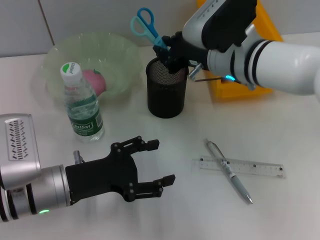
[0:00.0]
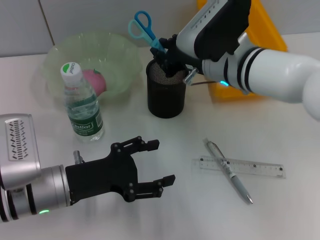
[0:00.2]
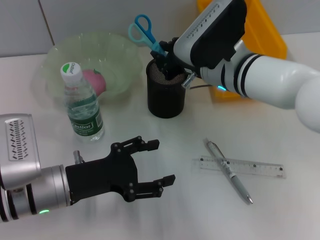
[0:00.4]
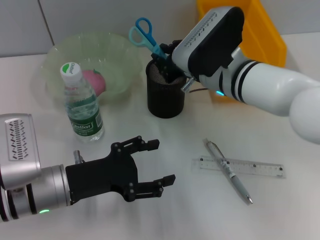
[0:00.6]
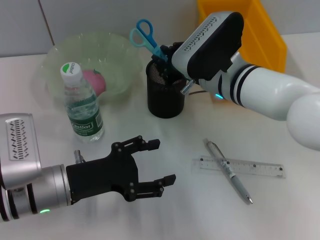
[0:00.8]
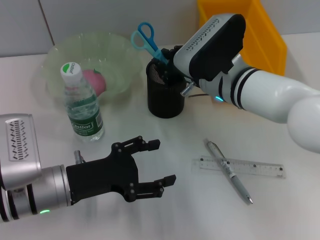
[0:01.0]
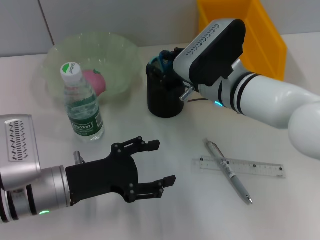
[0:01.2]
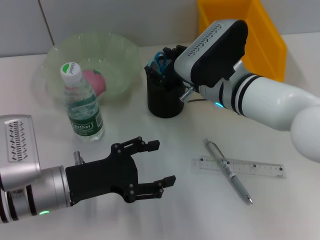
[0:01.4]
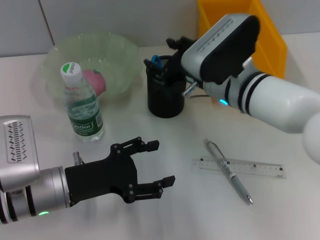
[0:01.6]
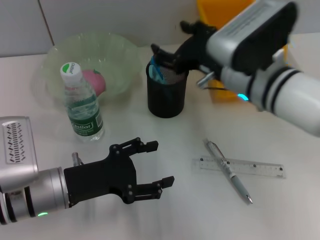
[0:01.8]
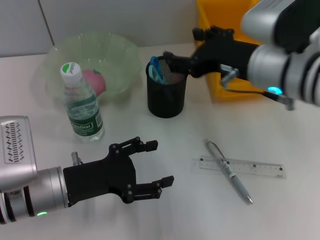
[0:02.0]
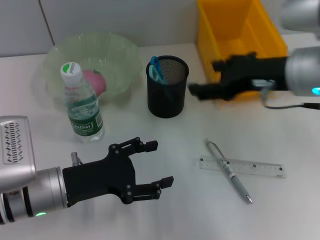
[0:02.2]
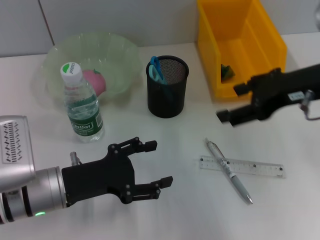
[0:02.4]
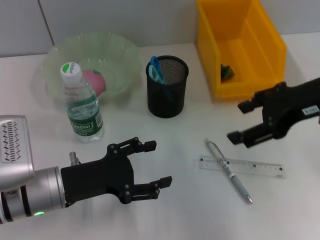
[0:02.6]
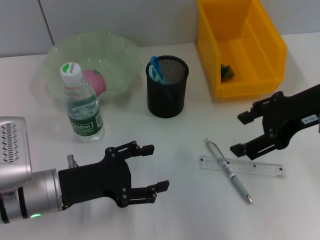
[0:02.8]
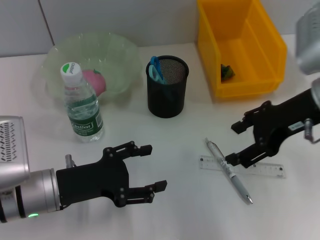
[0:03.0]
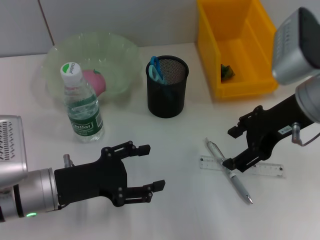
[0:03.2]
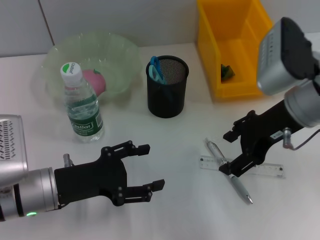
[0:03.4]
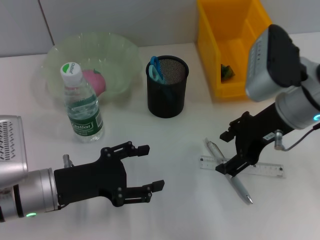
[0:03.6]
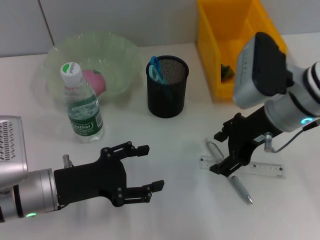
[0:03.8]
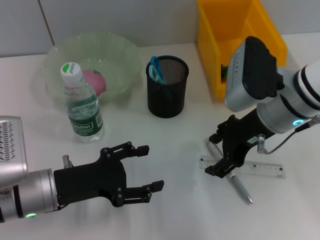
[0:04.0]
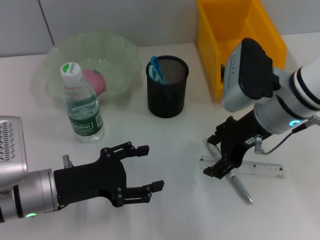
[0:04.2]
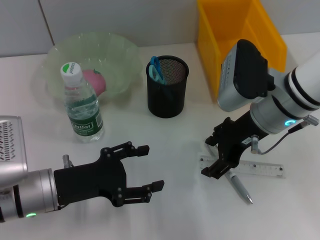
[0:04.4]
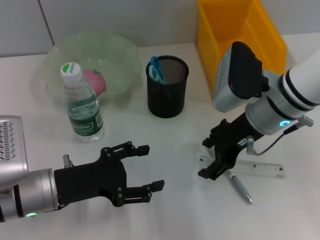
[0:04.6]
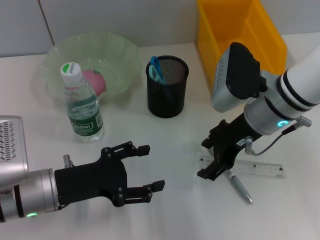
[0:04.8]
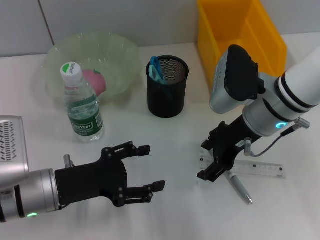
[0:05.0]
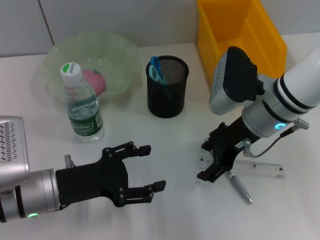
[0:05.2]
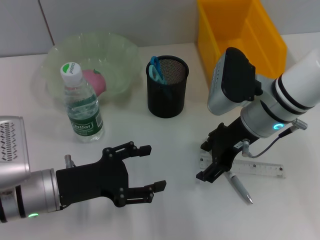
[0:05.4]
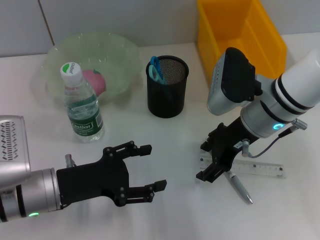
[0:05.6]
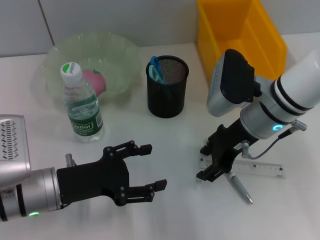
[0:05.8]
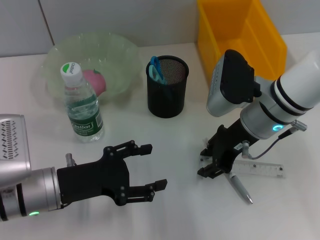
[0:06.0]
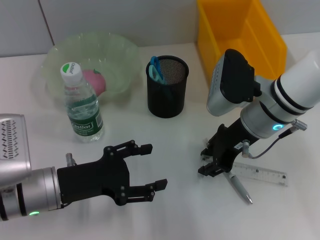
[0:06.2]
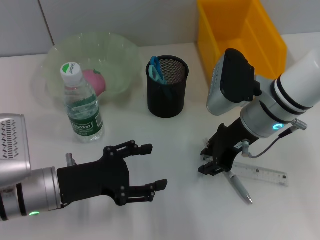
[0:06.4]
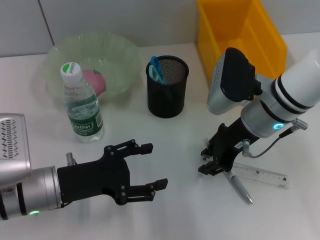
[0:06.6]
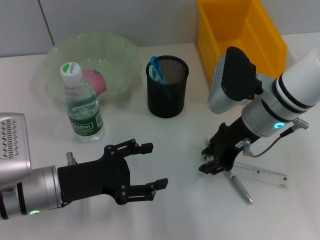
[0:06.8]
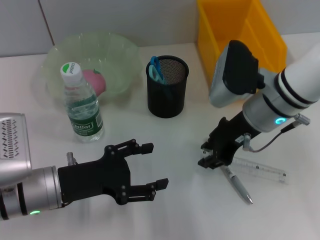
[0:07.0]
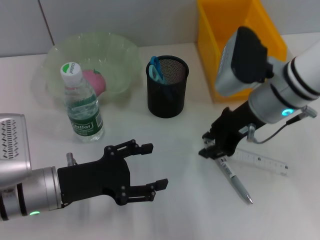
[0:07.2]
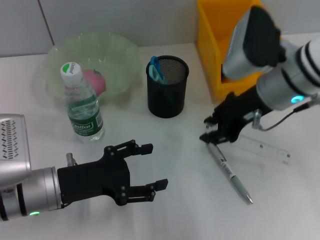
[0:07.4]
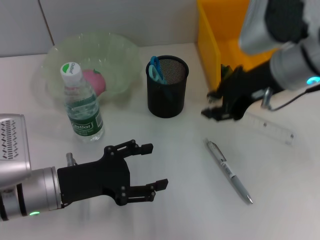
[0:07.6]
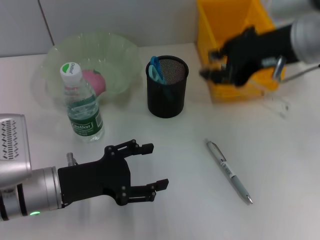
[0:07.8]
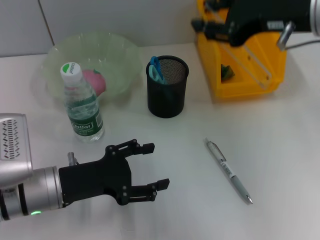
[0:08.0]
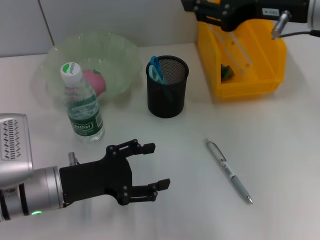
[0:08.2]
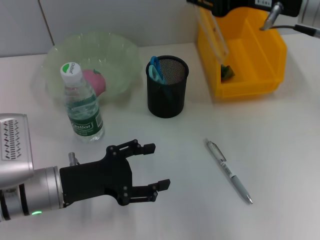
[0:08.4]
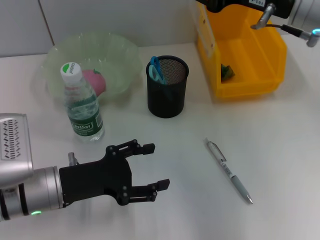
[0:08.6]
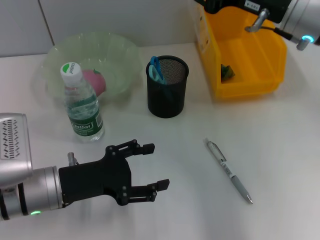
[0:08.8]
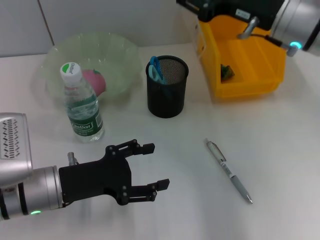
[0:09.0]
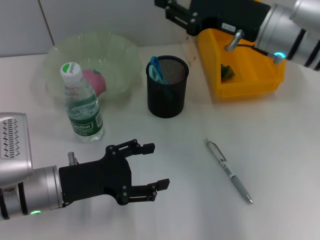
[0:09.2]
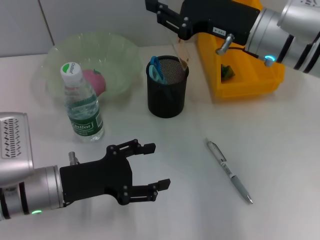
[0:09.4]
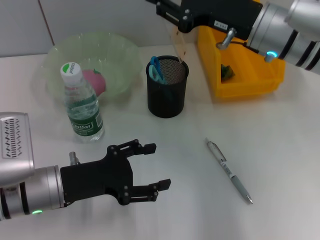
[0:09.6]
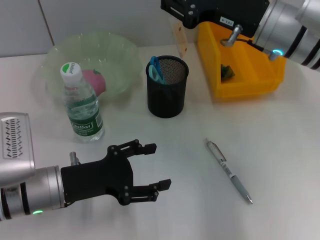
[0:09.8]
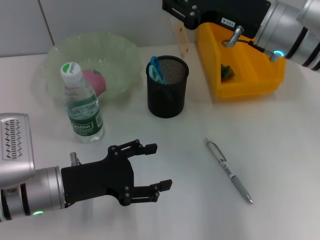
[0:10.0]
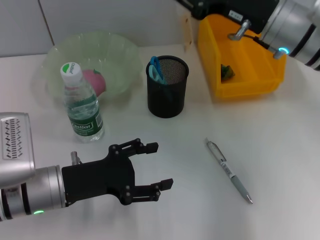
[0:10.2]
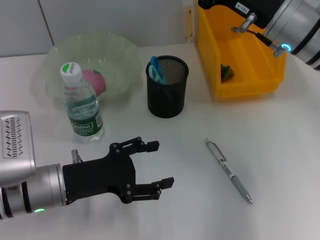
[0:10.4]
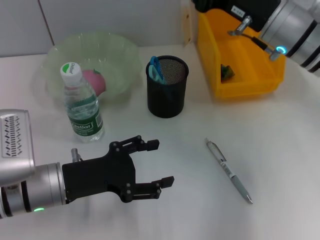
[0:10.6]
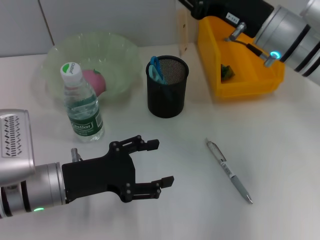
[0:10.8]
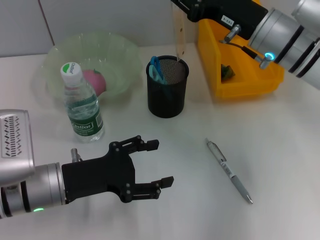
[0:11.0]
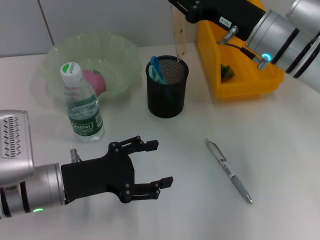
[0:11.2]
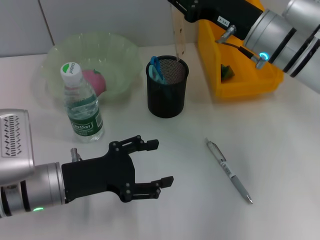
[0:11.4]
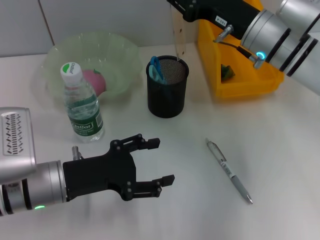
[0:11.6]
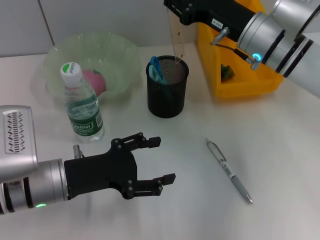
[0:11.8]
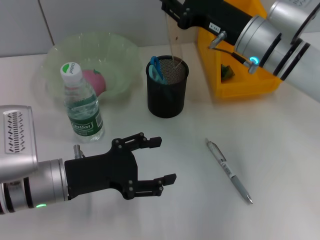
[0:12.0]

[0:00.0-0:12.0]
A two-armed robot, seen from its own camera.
Step, 0:01.6 to 0:06.8: Grab the ruler with the right hand.
0:00.0 to 0:01.6: The right gripper opens its fingers.
0:01.6 to 0:03.0: The right gripper shifts roughly 15 cm to the right and upward, and opens up.
0:03.0 to 0:04.4: The right gripper heads to the left and downward, covering roughly 10 cm.
0:04.4 to 0:06.0: There are only small adjustments of the grippers.
0:06.0 to 0:07.6: The right gripper goes about 10 cm upward, and closes.
0:07.6 to 0:09.0: The right gripper travels upward and back again, some 5 cm each way.
0:09.0 to 0:10.4: The grippers move only a little.
0:10.4 to 0:12.0: The right gripper ends up some 5 cm from where it was.

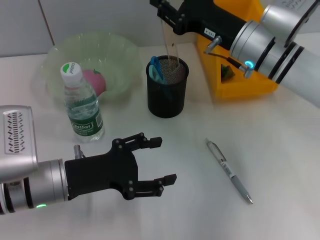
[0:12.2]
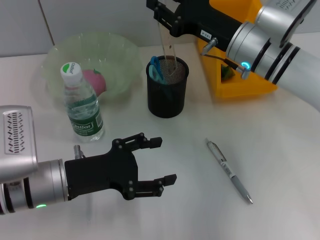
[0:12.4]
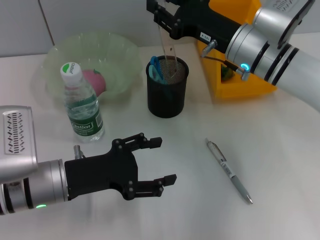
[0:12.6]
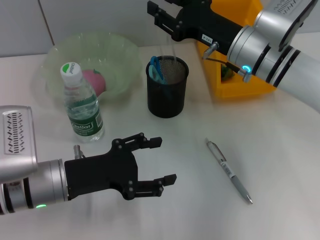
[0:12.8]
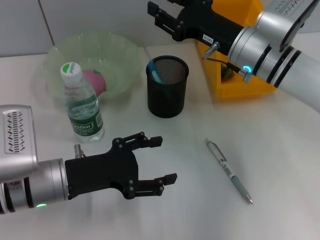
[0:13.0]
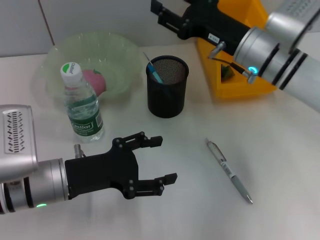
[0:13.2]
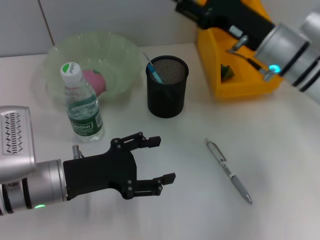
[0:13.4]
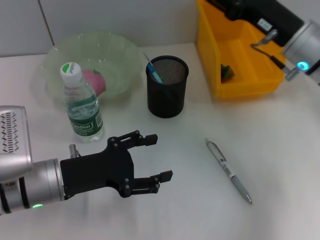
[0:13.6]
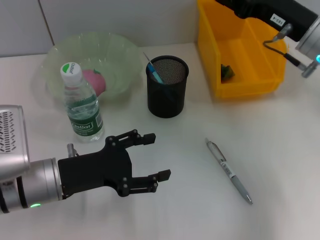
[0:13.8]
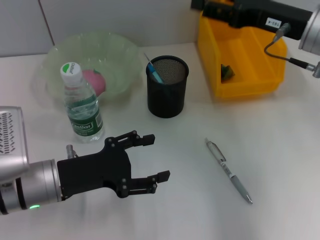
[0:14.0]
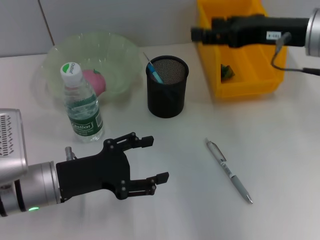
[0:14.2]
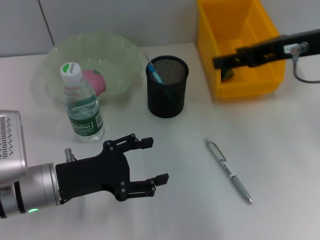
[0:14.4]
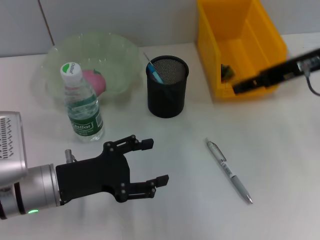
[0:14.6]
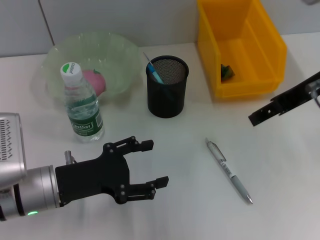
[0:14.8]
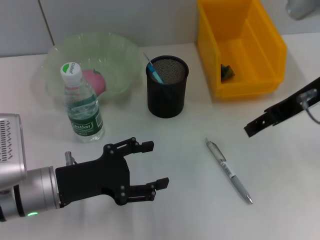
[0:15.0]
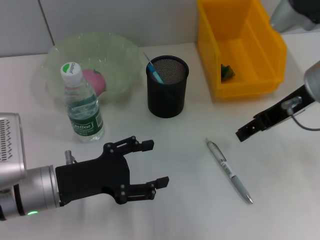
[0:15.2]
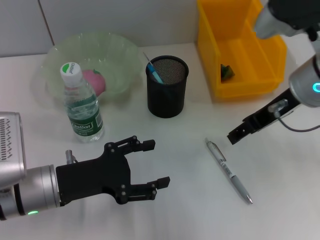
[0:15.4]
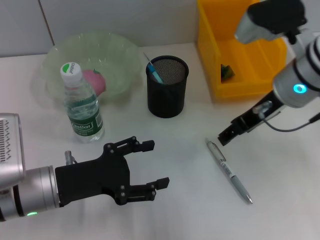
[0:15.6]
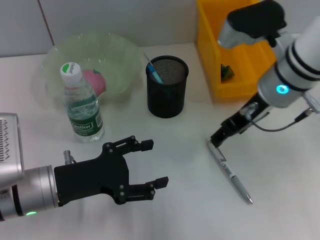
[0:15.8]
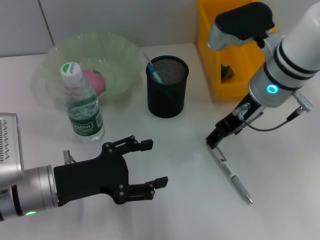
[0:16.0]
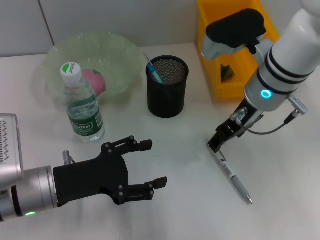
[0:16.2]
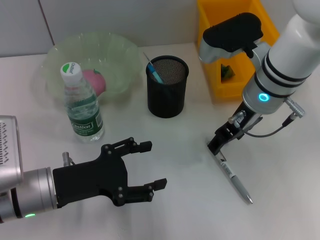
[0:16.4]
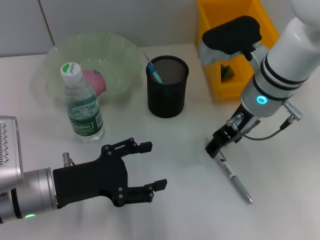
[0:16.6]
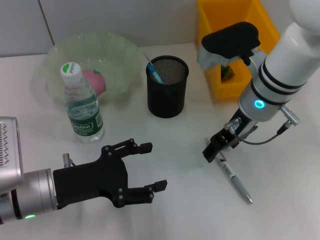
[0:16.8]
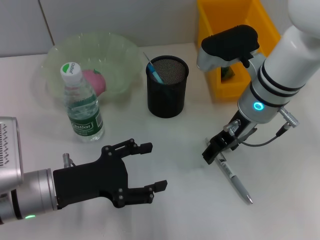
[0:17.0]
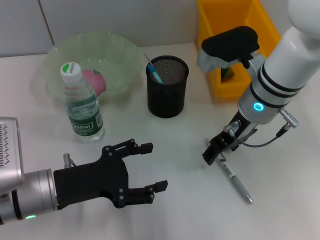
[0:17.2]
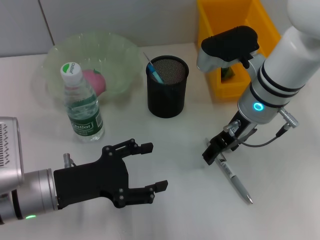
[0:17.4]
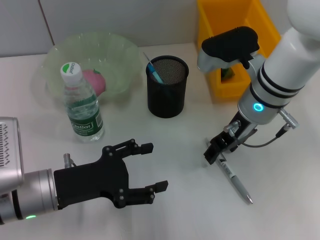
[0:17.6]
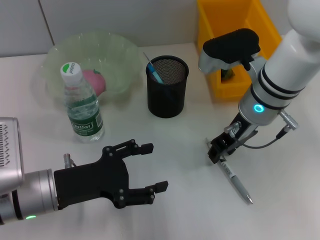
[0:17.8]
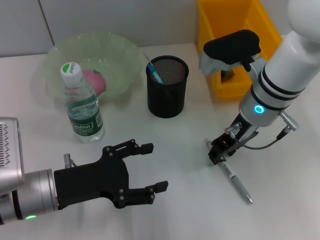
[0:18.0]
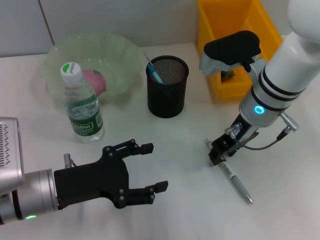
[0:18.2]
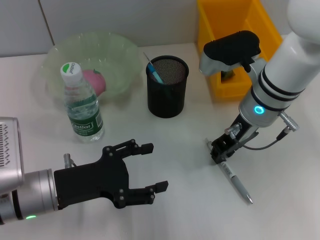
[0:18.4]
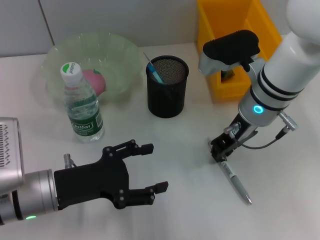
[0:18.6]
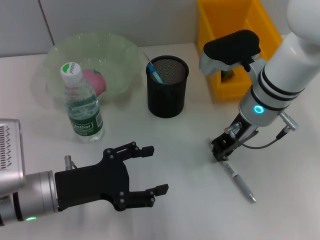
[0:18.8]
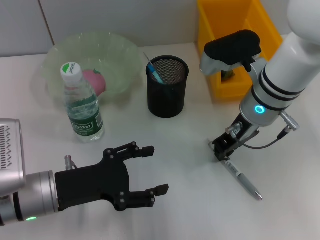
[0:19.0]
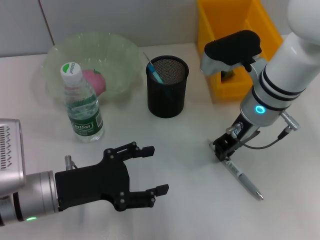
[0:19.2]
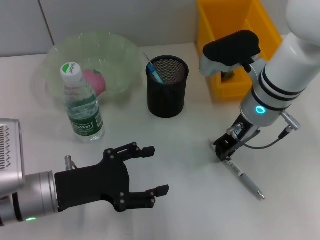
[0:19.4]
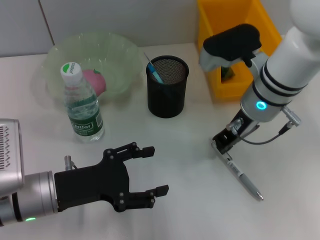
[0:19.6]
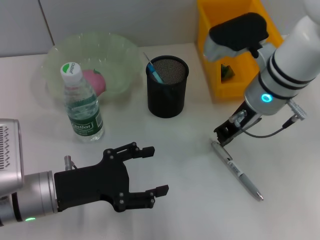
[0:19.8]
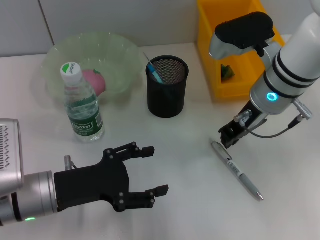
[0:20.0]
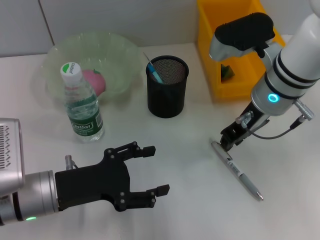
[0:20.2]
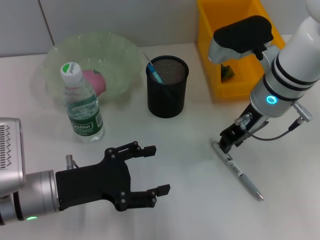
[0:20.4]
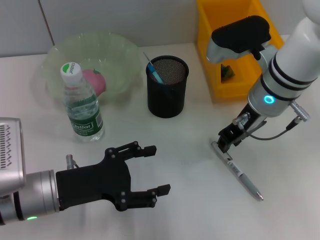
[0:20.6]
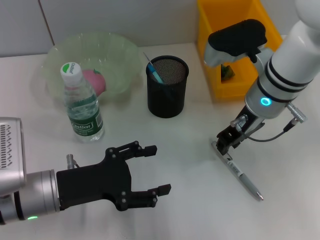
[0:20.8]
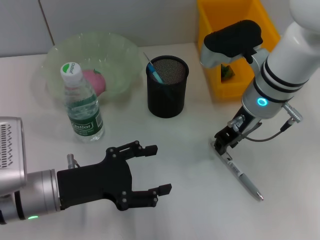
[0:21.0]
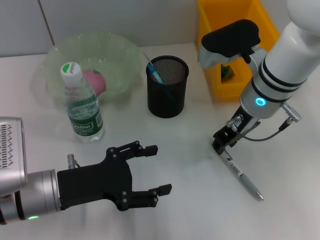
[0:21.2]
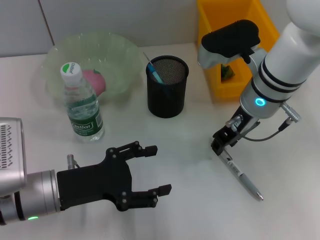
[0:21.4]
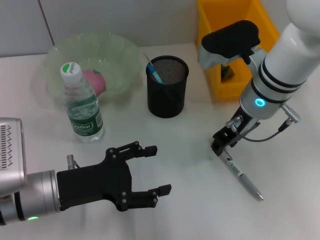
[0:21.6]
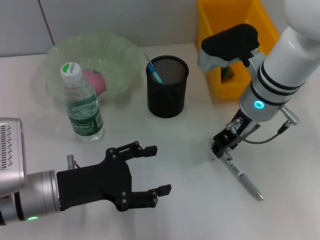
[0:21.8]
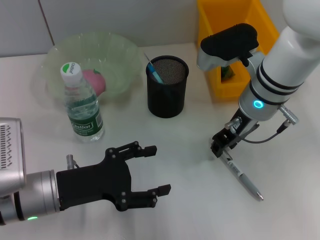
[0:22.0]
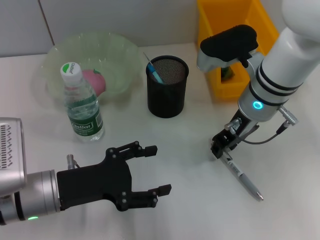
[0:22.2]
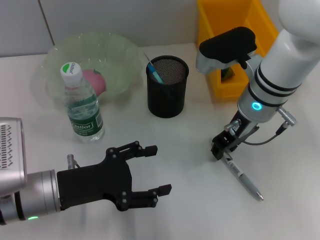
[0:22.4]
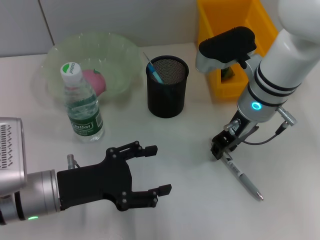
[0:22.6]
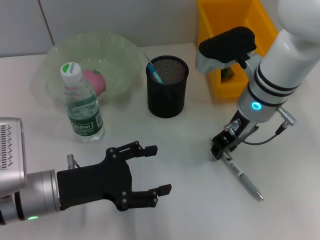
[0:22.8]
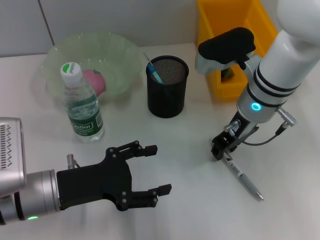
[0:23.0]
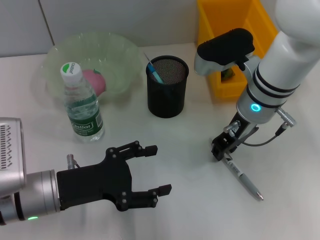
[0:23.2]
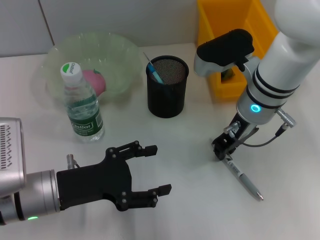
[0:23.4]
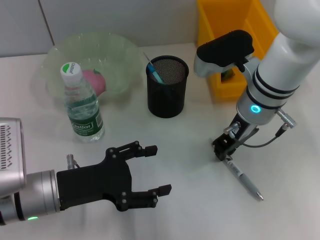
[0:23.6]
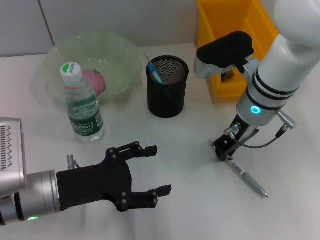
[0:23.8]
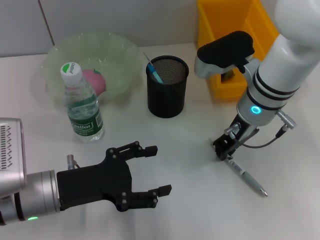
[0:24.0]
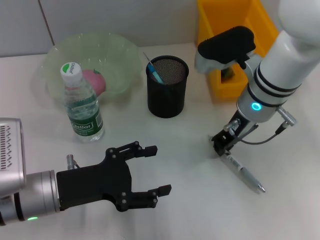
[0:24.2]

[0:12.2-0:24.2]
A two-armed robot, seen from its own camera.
Step, 0:13.6 to 0:24.0: Grab the gray spring-action pen with the right hand.
0:12.2 to 0:13.8: The right gripper shifts about 5 cm to the right, and opens up.
0:15.2 to 0:16.6: The right gripper travels to the left by about 5 cm.
0:16.6 to 0:18.2: The right gripper closes up.
0:18.2 to 0:19.8: The right gripper closes up.
0:19.8 to 0:21.2: Both grippers stay about where they are.
0:21.2 to 0:22.6: Both grippers stay about where they are.
0:22.6 to 0:24.2: Both grippers stay put.
